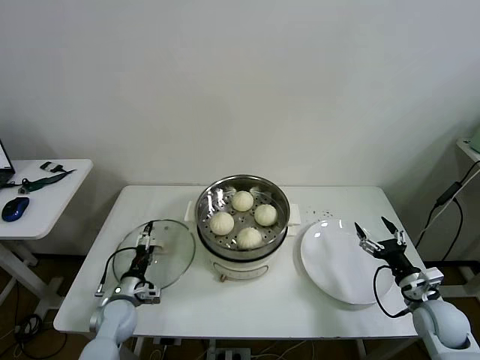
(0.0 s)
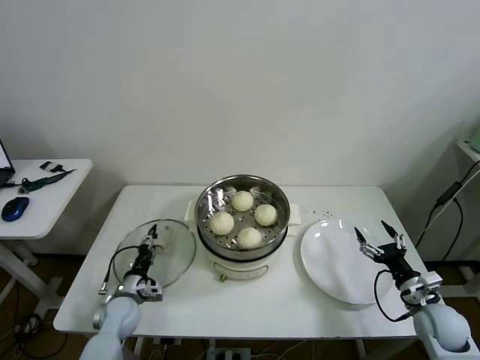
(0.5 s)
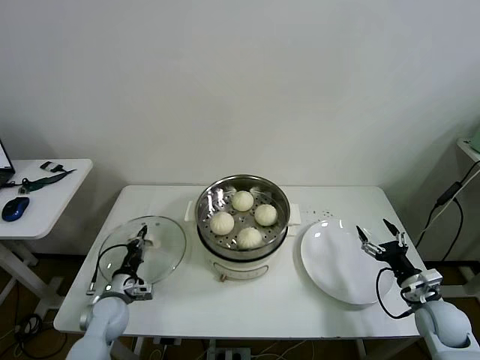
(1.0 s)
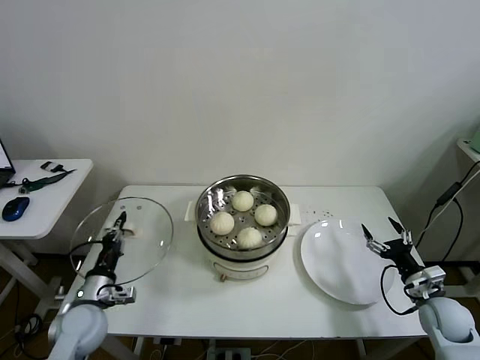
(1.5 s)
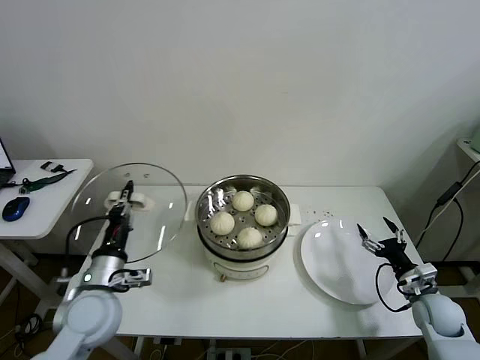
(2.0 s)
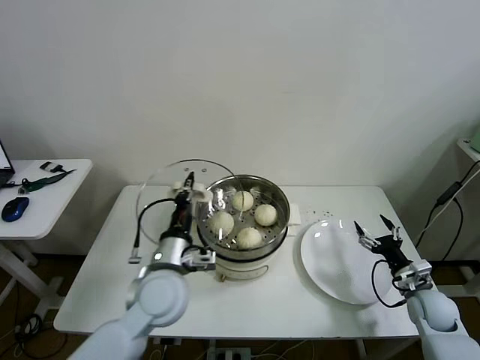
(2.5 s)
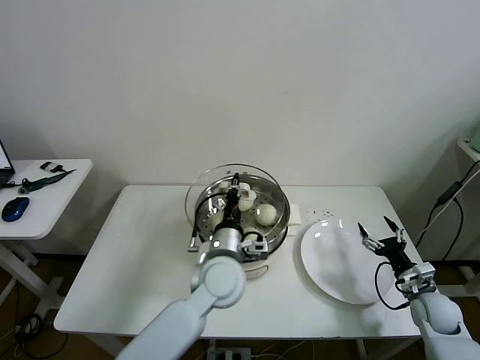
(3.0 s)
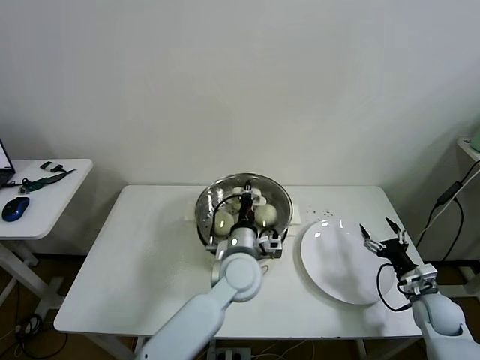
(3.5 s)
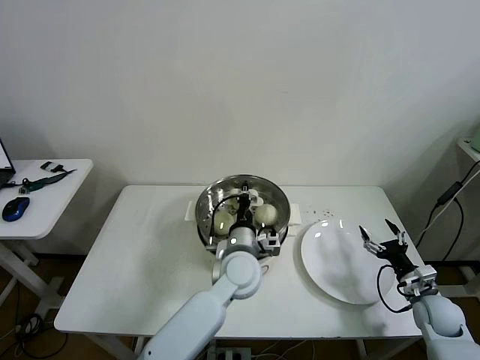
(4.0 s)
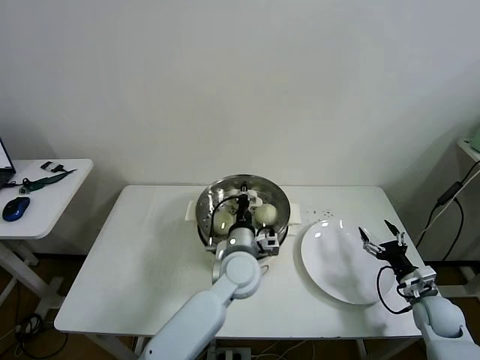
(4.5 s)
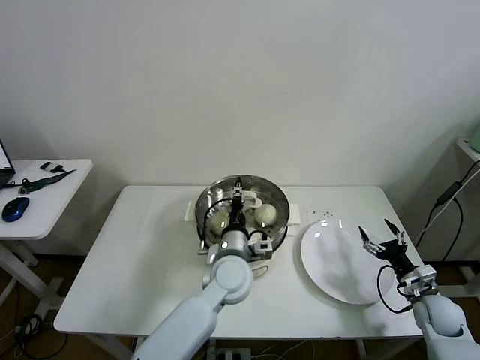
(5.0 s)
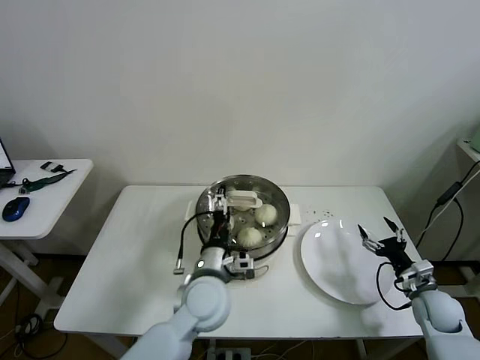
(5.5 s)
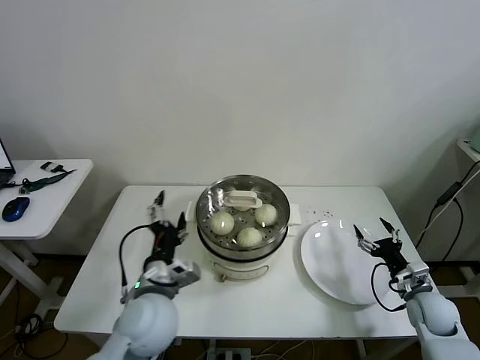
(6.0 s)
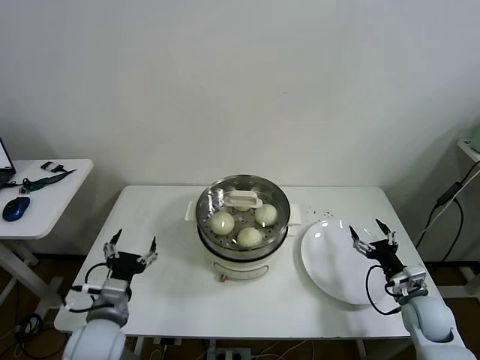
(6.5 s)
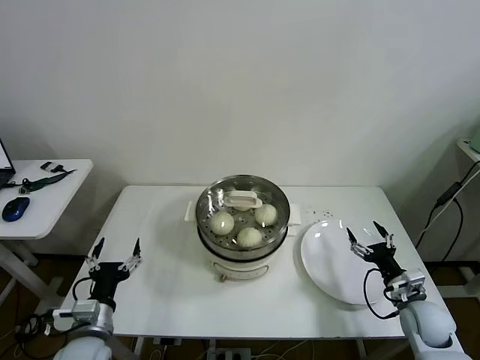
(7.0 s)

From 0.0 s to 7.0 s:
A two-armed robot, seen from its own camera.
Task of the whole recording: take steamed baozi put them in steamer then cover it.
Step, from 1.5 s to 4.5 s: Place the pot lid on the steamer with left gripper.
From 0.0 s to 2.0 s: The left gripper is displaced upward by roughly 20 cm, and closes up.
From 2.0 s to 3.5 s: The left gripper heads to the right, covering approximately 30 cm.
From 3.5 s to 5.0 s: The left gripper opens.
From 5.0 s to 7.0 s: The right gripper travels to the left by roughly 5 cm; the left gripper shifts some 30 cm to the left and backward, and opens its fingers.

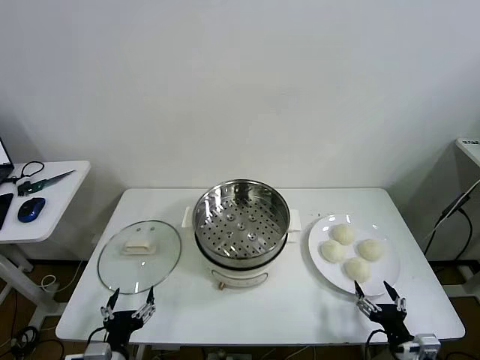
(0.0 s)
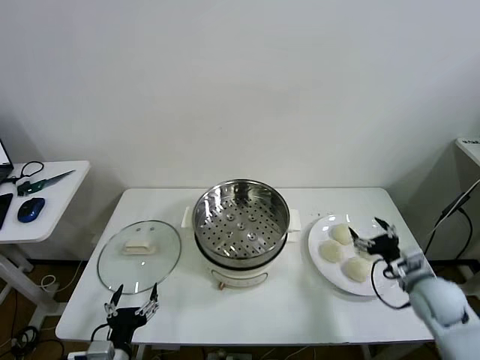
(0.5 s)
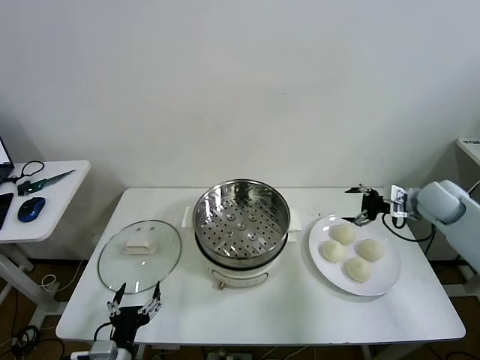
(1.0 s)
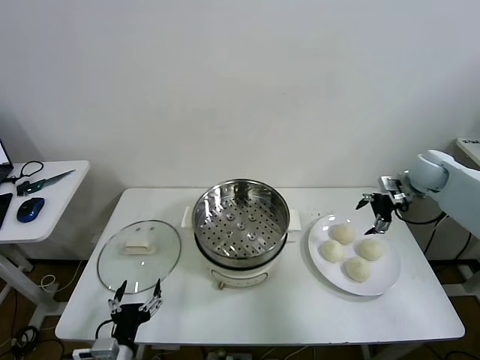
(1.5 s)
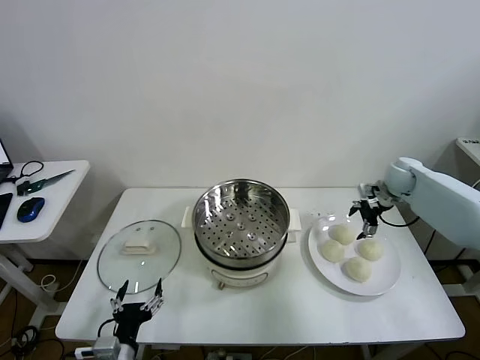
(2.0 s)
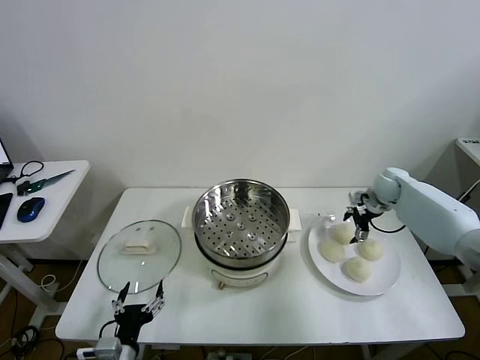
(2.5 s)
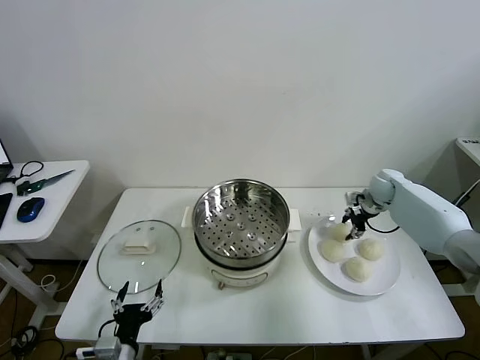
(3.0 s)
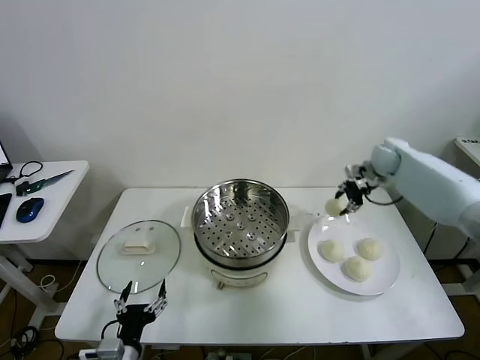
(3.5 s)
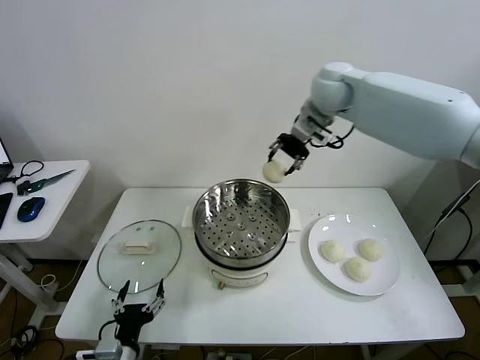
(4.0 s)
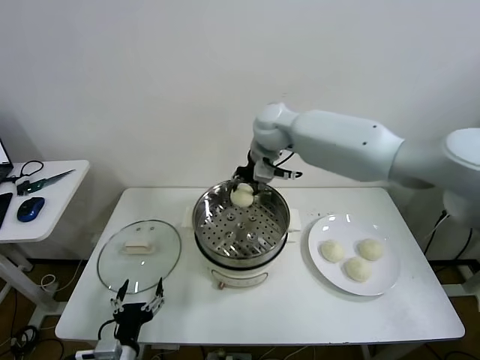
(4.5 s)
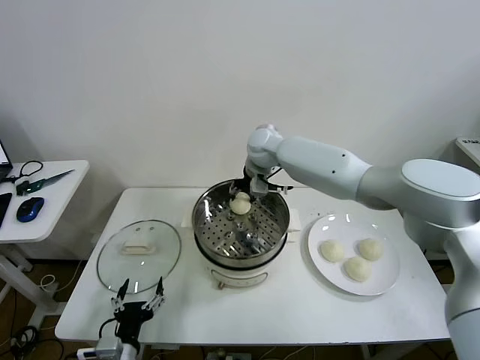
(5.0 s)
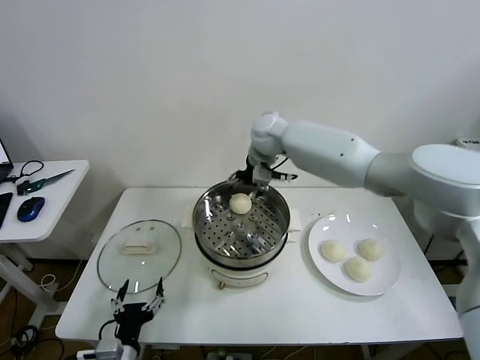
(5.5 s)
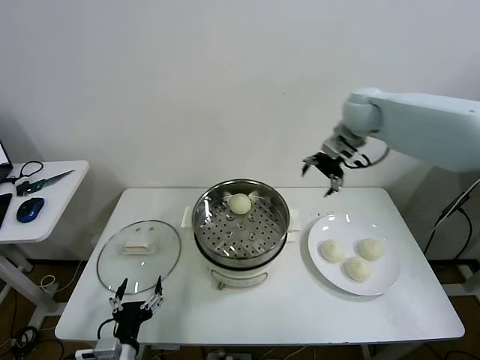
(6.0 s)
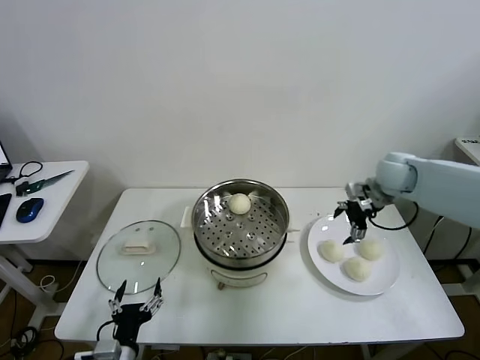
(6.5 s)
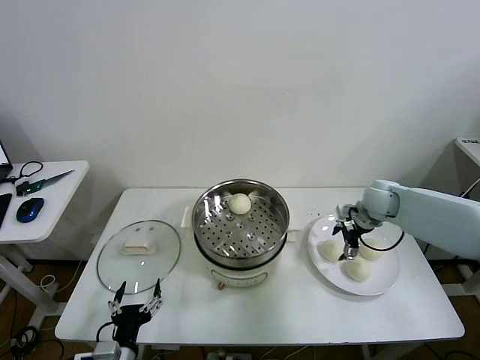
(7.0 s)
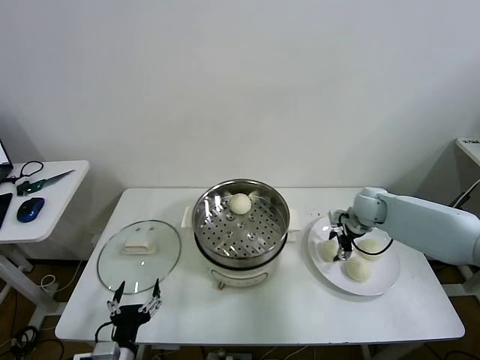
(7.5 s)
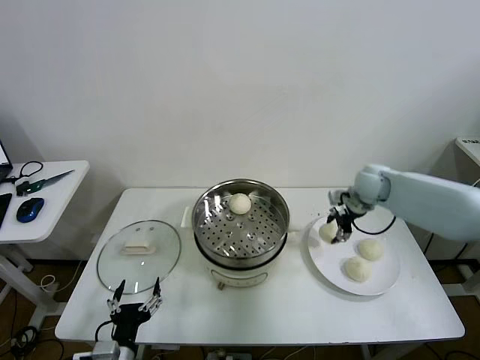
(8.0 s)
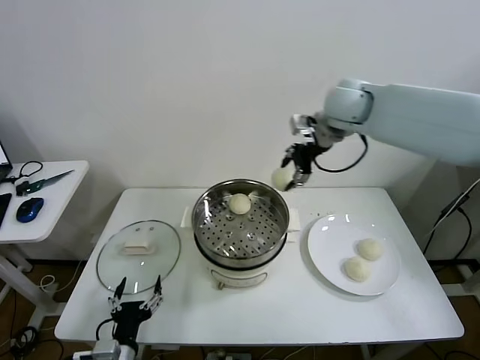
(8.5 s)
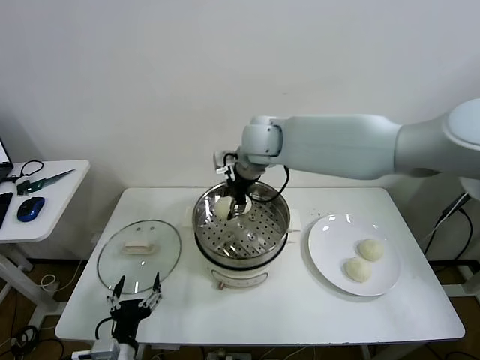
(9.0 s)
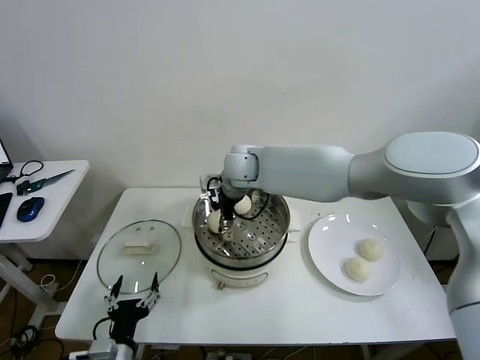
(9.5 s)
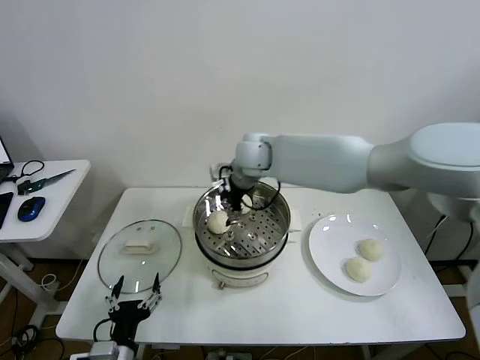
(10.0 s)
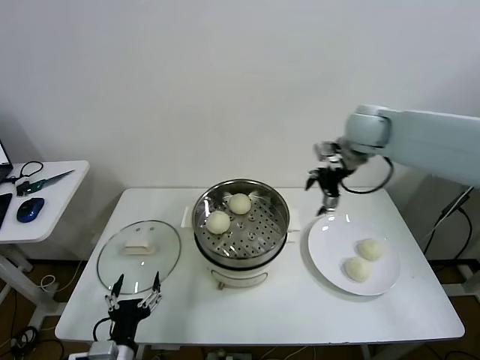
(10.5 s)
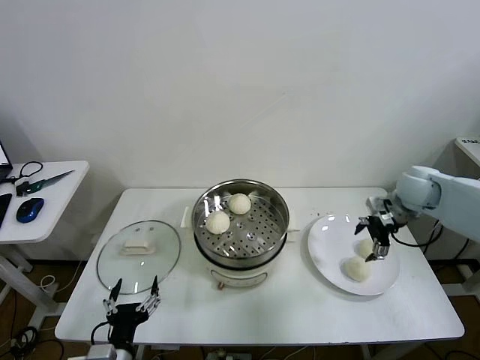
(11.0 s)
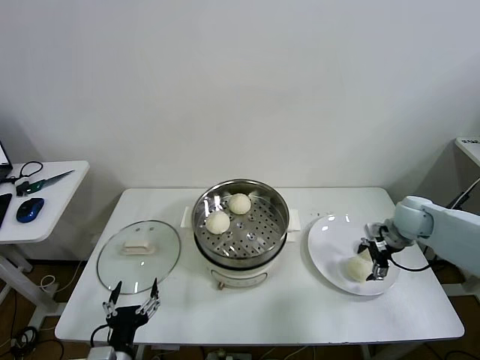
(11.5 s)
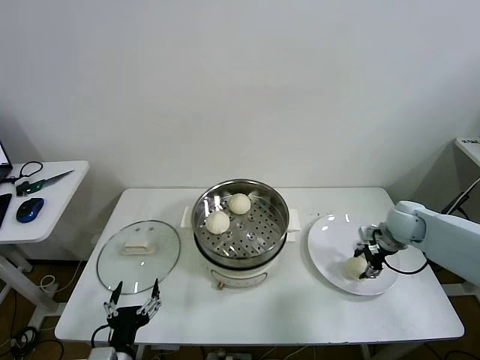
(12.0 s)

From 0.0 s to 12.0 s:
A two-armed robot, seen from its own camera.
Task of the whole recording: take steamed baozi put them in steamer then cover it.
Step, from 0.0 s to 2.5 s: Grasp the baozi in the plate with right gripper.
Step, from 3.5 s to 5.0 s: Place the baozi on the steamer with right gripper.
Step, from 5.5 s to 7.5 s: Grasp the baozi in the plate with right gripper.
Step, from 8.0 s to 9.5 s: Place the baozi on the steamer with right gripper.
Step, from 10.0 s to 12.0 s: Grasp the baozi in the plate with right gripper.
From 2.0 s to 4.0 s: The right gripper shifts approximately 35 cm to the left and upward, and closes.
From 4.0 s to 6.0 s: The right gripper goes roughly 15 cm to the right and downward, and opens.
From 6.0 s to 8.0 s: The right gripper shifts some 10 cm downward, and closes up.
From 8.0 s to 10.0 s: The right gripper travels to the left by roughly 25 cm, and opens up.
From 10.0 s to 12.0 s: The right gripper goes some 40 cm to the right and downward, and closes up.

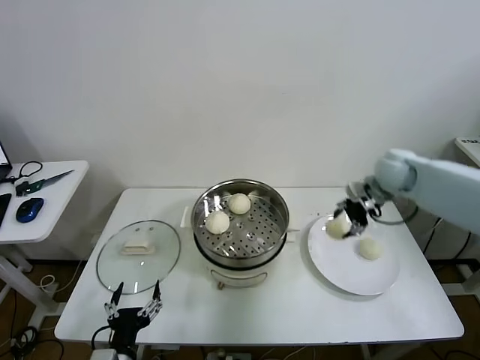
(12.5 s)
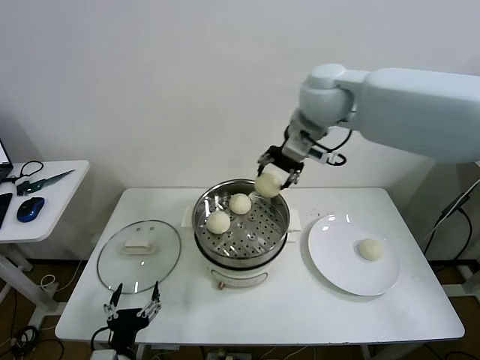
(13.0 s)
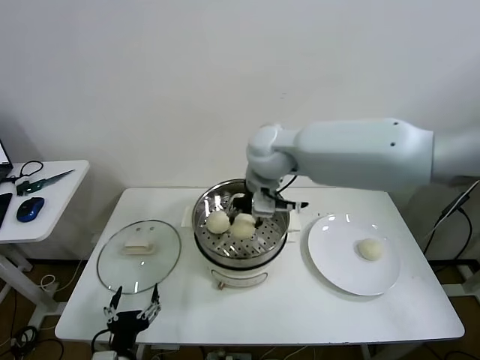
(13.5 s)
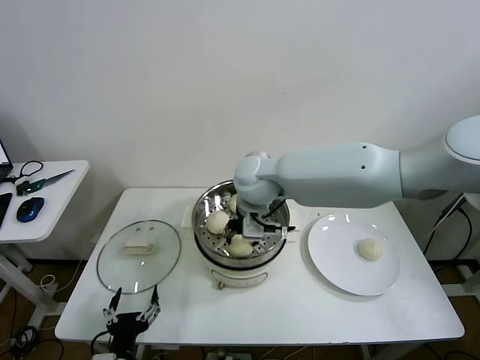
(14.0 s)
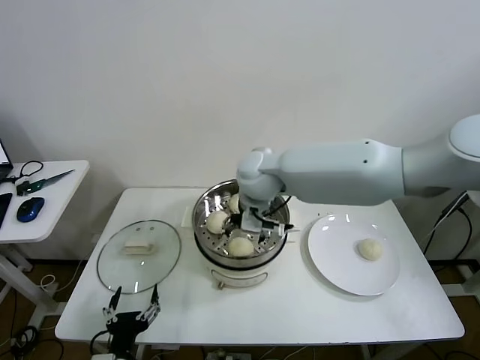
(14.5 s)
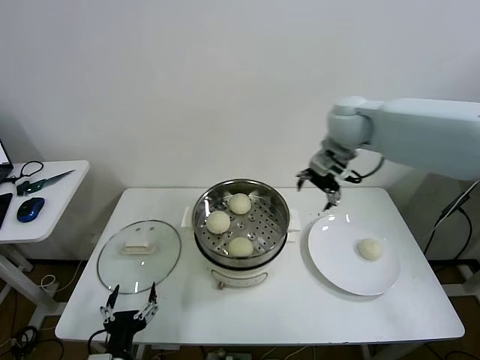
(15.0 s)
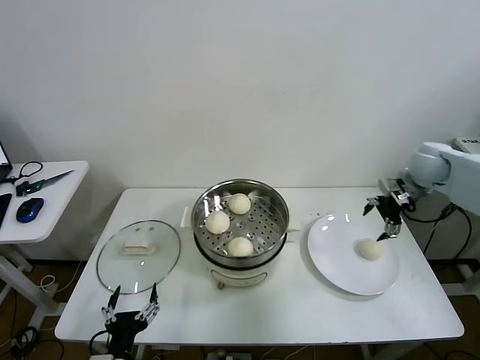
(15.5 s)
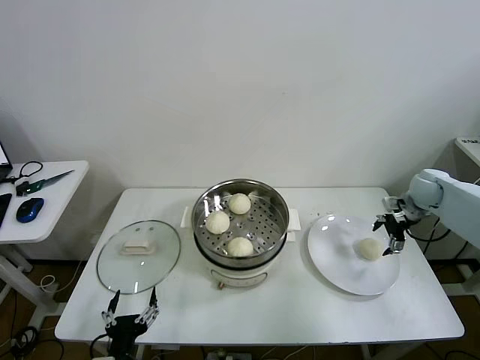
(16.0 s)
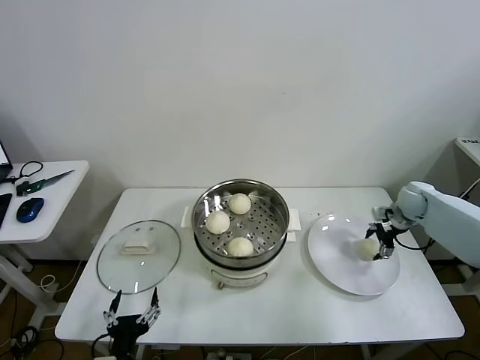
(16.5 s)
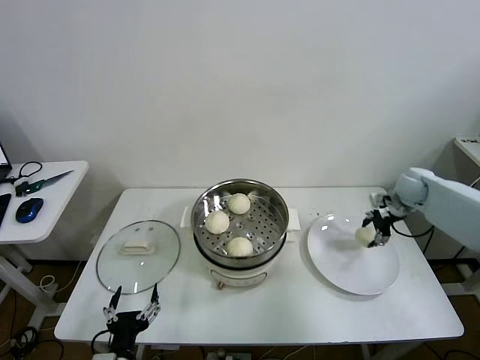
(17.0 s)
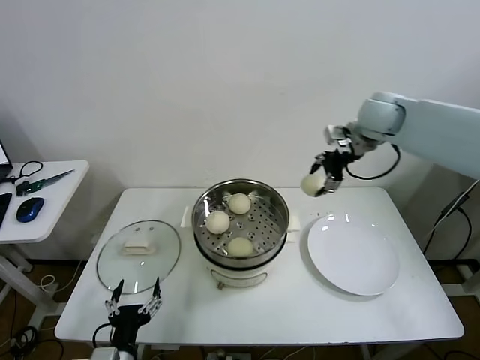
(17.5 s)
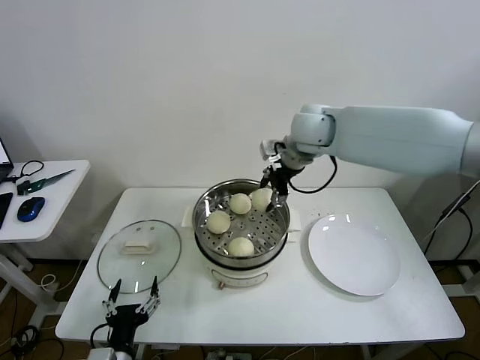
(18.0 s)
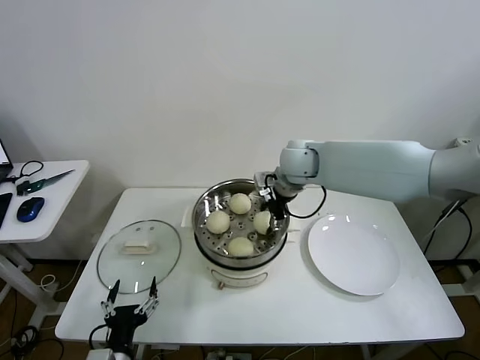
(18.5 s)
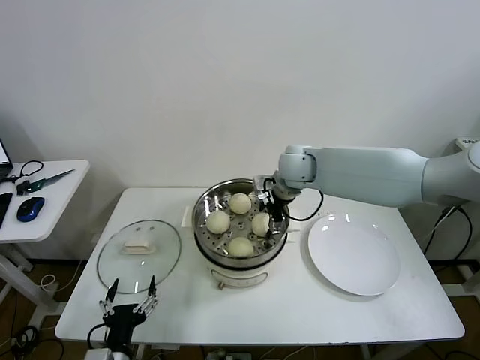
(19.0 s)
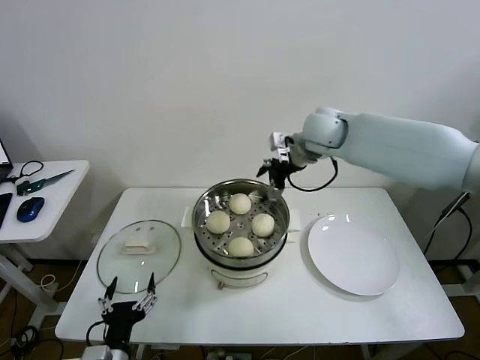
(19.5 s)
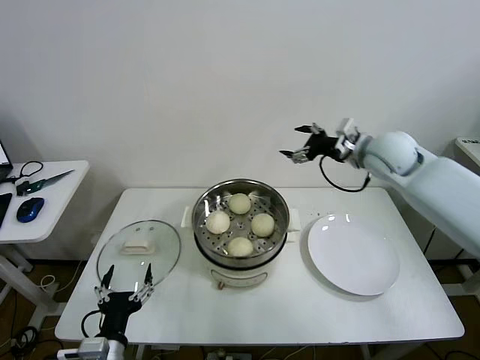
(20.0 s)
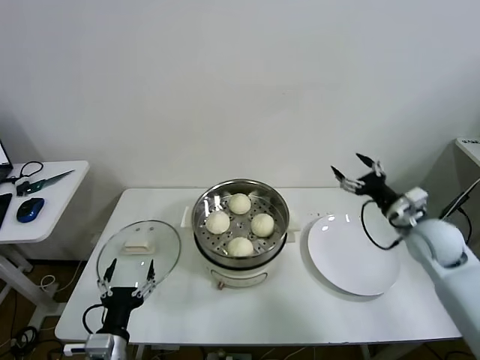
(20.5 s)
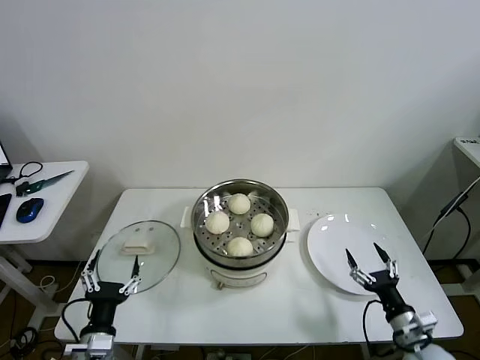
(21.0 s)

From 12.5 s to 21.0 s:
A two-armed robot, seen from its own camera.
Task of the whole recording: take steamed baozi put them in steamer then cover it.
Step, from 12.5 s to 14.0 s: Place the baozi on the steamer with right gripper.
Step, from 14.5 s to 16.5 s: Grasp the baozi in the plate with right gripper.
Step, from 17.0 s to 19.0 s: Place the baozi on the steamer with right gripper.
From 12.5 s to 14.5 s: The right gripper shifts approximately 30 cm to the left, and opens up.
From 14.5 s to 16.5 s: The right gripper goes about 40 cm to the right.
From 16.5 s to 19.0 s: The right gripper goes some 35 cm to the left.
From 19.0 s to 21.0 s: The right gripper goes some 50 cm backward, downward and to the right.
